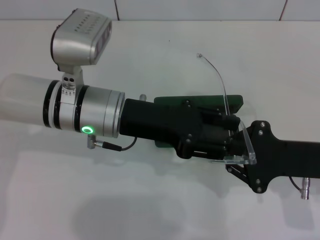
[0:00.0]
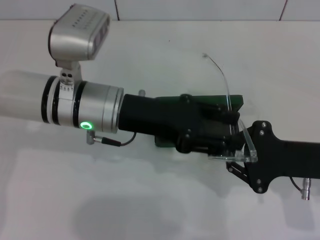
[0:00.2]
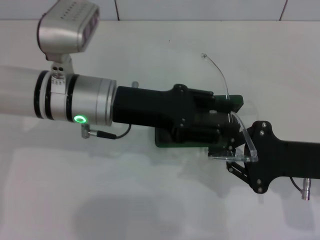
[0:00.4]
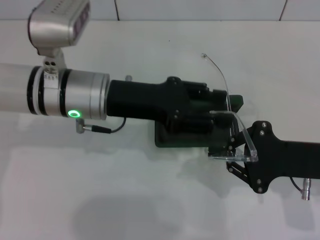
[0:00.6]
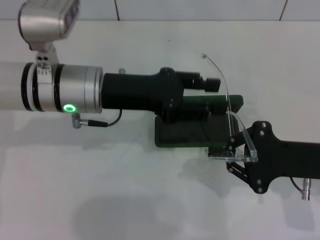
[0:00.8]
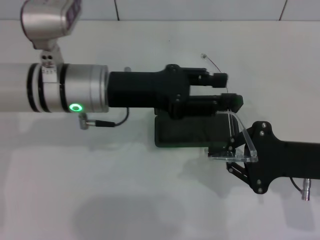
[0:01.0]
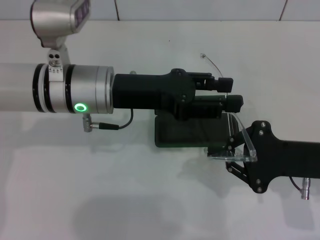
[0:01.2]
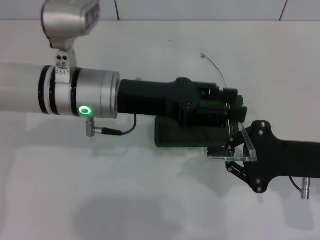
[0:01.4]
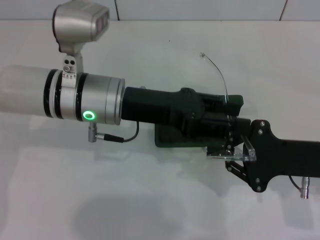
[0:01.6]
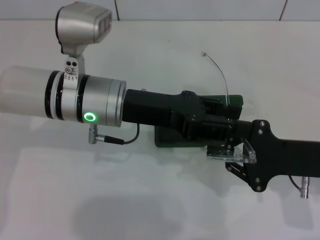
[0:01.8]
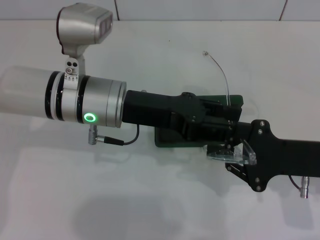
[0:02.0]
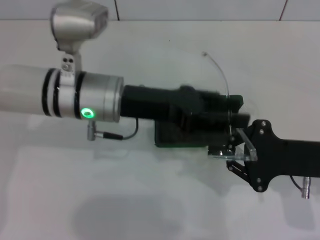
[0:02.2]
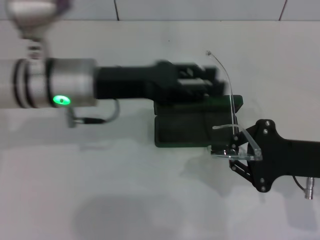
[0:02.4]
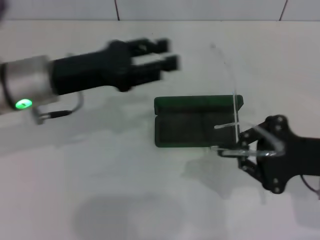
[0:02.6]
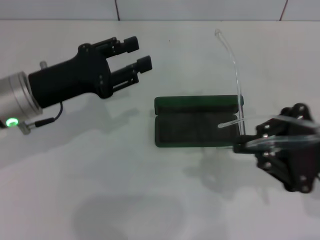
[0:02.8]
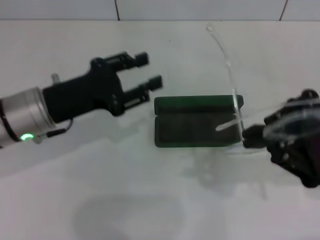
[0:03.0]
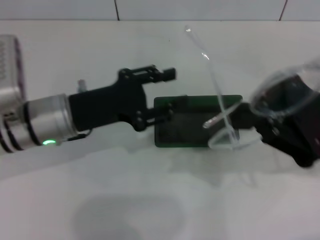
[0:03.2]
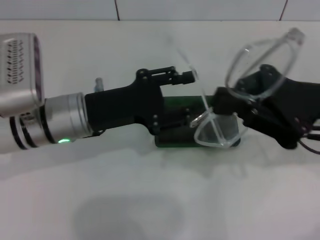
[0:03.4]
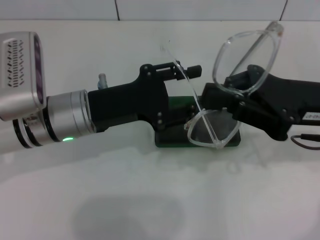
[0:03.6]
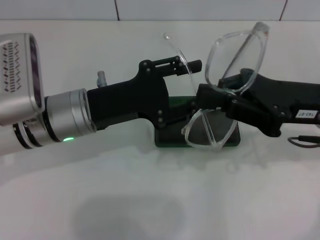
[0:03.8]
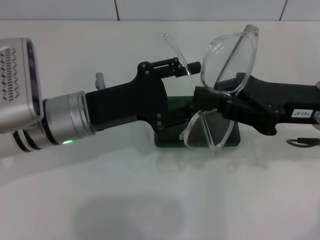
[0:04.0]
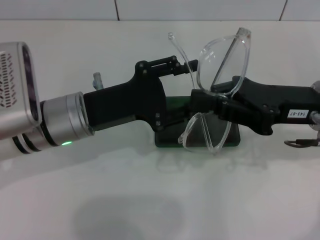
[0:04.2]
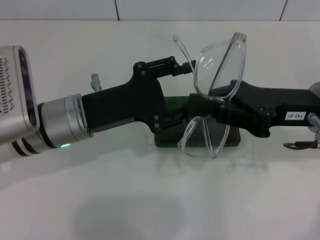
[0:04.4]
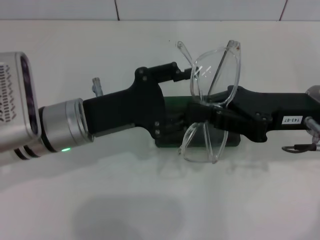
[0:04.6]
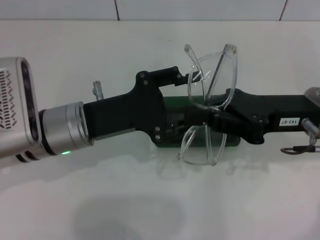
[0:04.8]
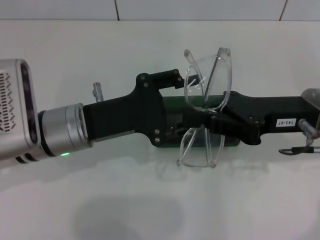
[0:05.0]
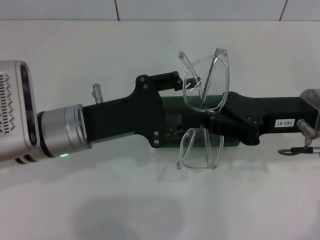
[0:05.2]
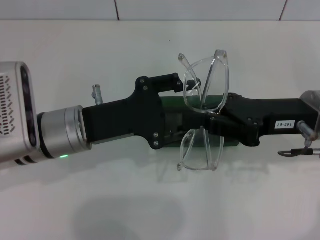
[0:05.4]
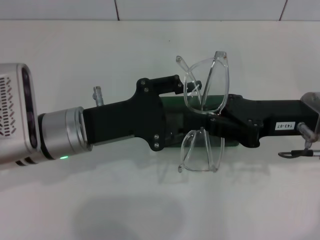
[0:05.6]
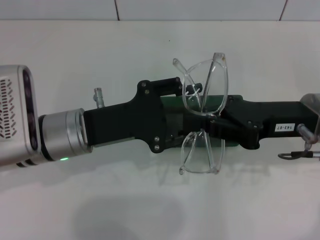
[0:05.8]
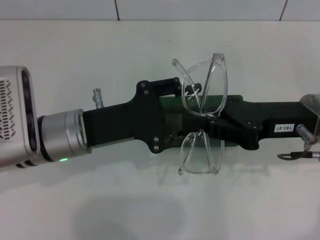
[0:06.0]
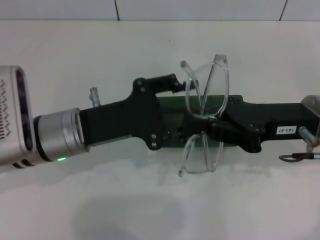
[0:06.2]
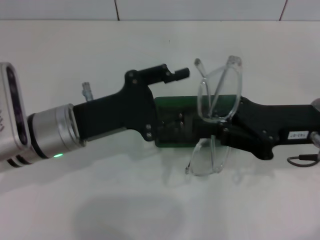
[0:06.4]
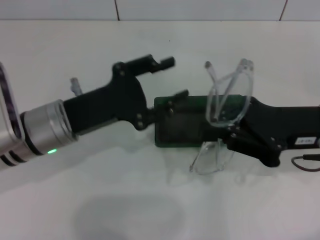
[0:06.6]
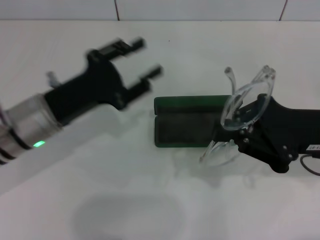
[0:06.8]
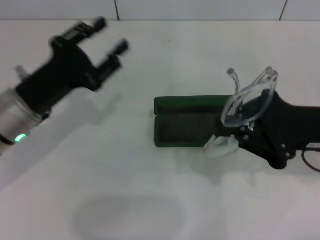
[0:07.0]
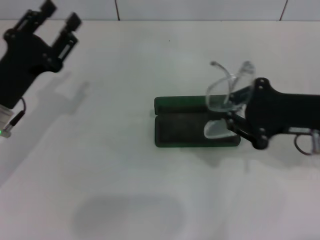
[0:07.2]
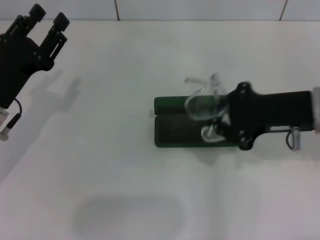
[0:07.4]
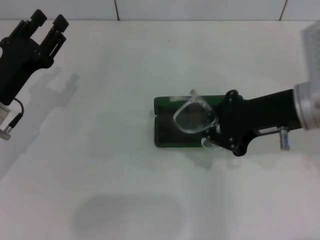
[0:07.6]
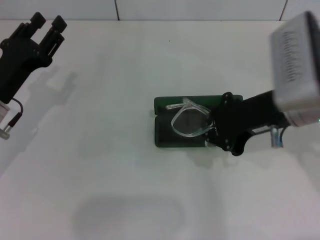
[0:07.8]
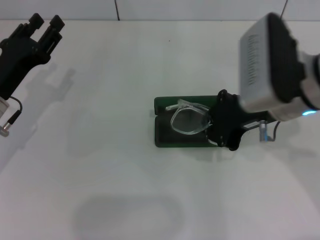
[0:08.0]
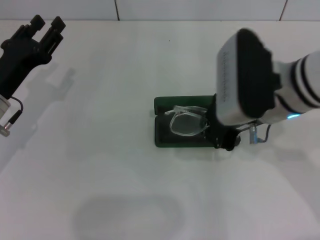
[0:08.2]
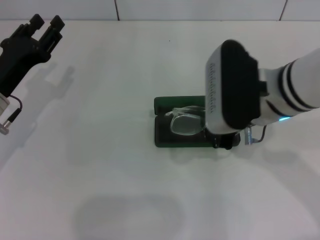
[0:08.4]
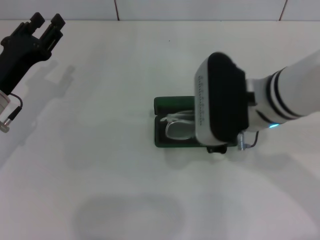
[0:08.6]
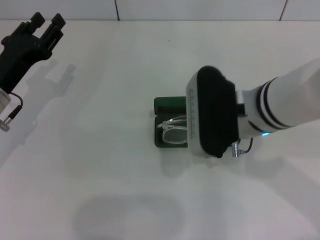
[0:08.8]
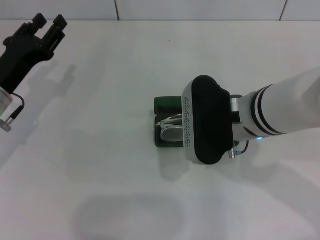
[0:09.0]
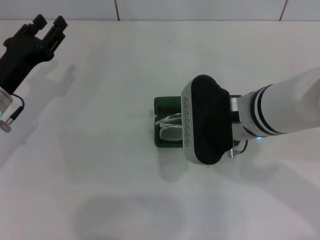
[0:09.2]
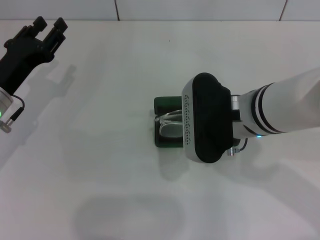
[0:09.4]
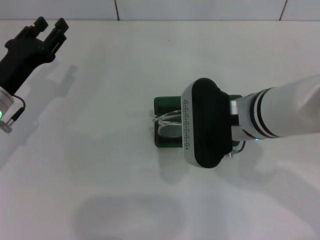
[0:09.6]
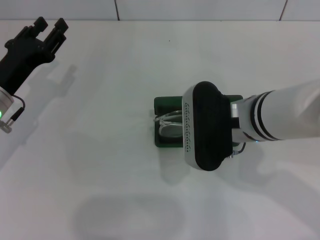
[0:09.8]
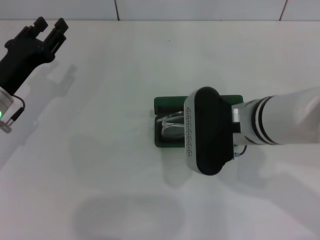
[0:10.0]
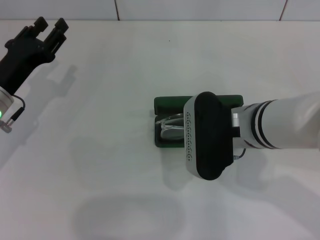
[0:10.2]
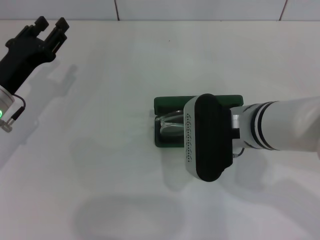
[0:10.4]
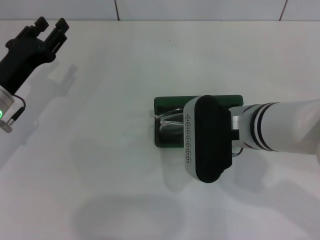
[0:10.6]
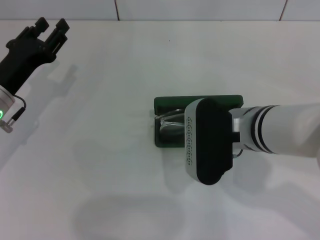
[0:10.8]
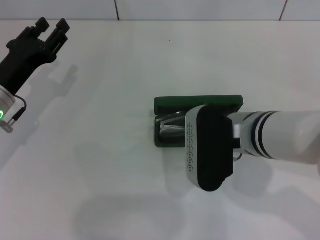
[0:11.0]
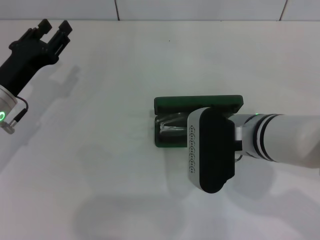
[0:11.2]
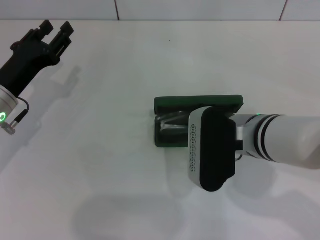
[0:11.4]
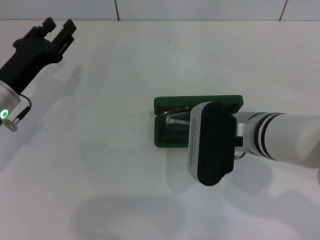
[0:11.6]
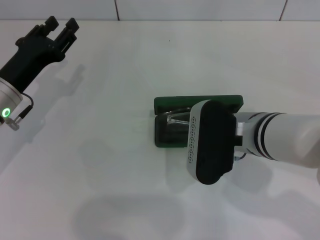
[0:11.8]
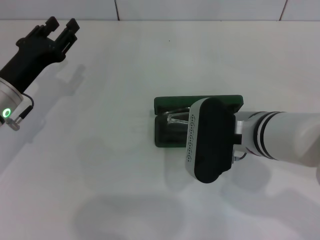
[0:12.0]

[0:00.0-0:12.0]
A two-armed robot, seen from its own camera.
Step, 0:00.0 to 0:06.2: Fold the frame with your left hand.
0:00.0 to 0:01.6: There are only small adjustments of the grippers.
0:01.6 to 0:03.0: The right gripper moves upward, roughly 5 cm. The left gripper shifts about 10 cm to the left.
0:03.0 to 0:04.4: The right gripper changes place by about 5 cm. The left gripper changes place by some 5 cm.
0:06.0 to 0:07.6: The left gripper shifts some 10 cm to the left.
0:07.6 to 0:09.0: The right gripper heads to the left, covering some 10 cm.
0:09.0 to 0:12.0: The grippers move only a little.

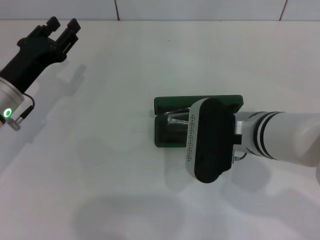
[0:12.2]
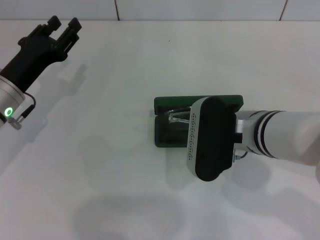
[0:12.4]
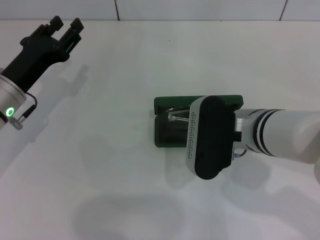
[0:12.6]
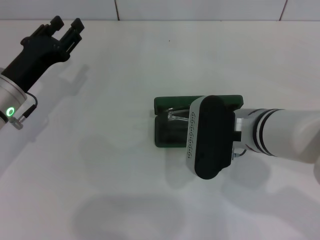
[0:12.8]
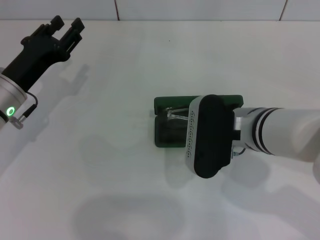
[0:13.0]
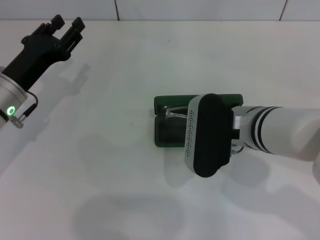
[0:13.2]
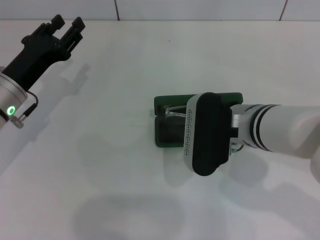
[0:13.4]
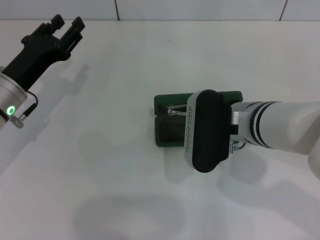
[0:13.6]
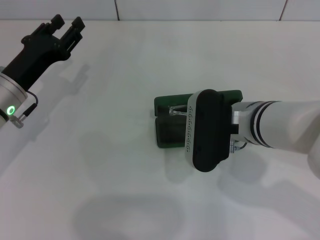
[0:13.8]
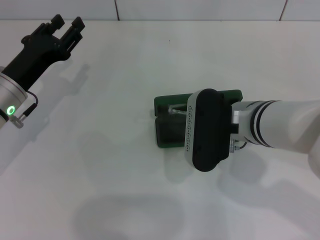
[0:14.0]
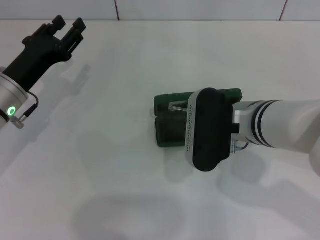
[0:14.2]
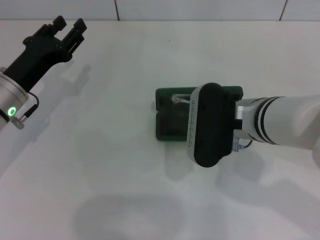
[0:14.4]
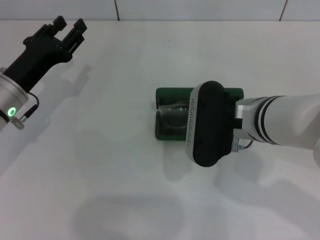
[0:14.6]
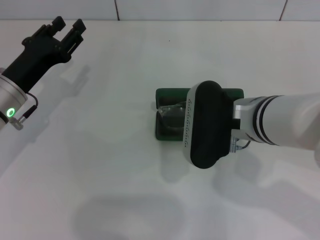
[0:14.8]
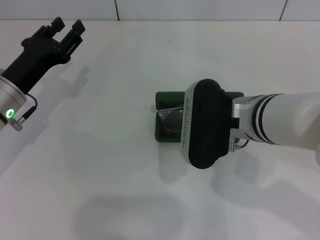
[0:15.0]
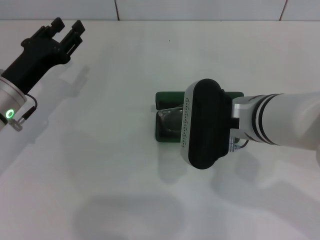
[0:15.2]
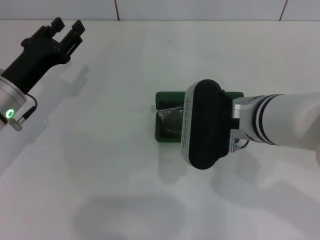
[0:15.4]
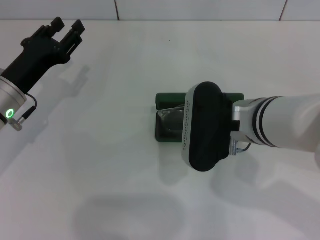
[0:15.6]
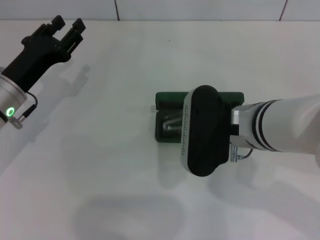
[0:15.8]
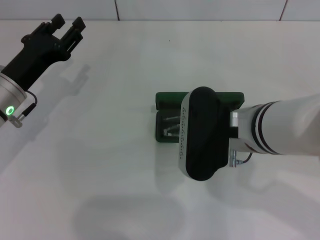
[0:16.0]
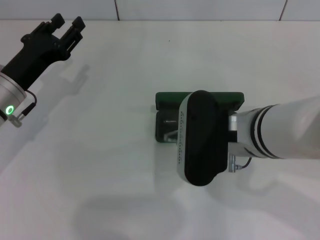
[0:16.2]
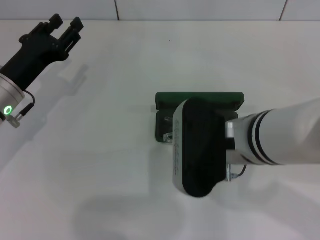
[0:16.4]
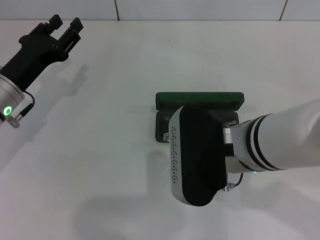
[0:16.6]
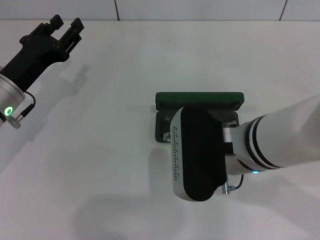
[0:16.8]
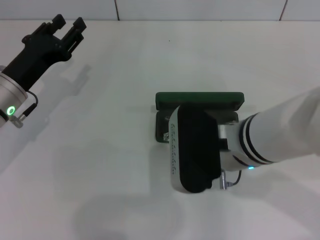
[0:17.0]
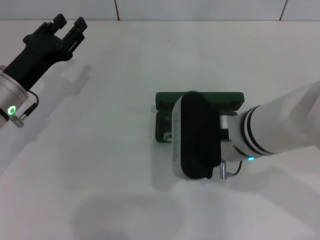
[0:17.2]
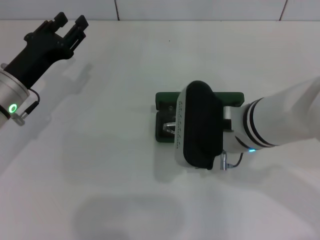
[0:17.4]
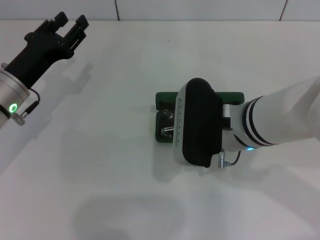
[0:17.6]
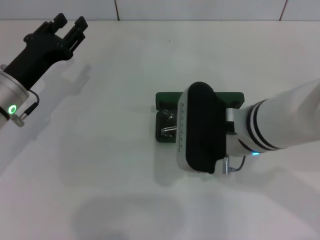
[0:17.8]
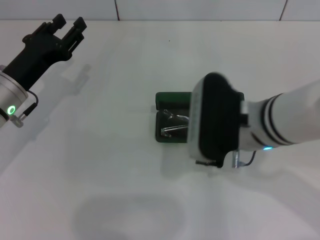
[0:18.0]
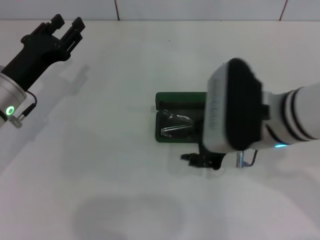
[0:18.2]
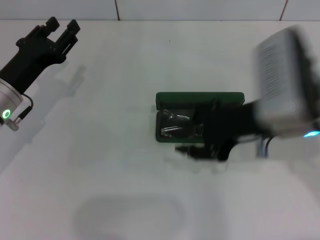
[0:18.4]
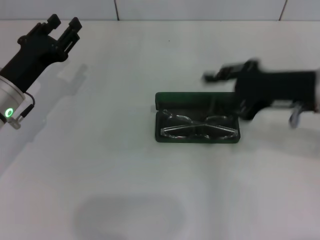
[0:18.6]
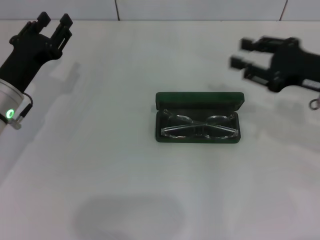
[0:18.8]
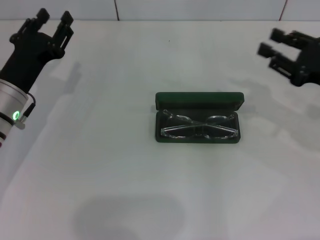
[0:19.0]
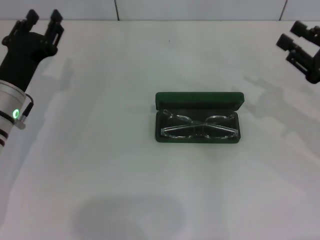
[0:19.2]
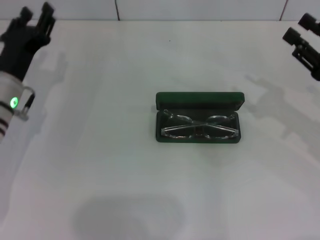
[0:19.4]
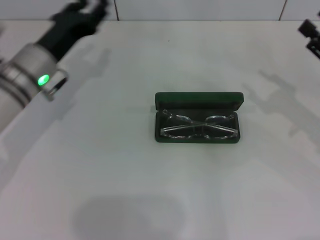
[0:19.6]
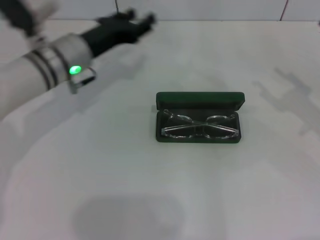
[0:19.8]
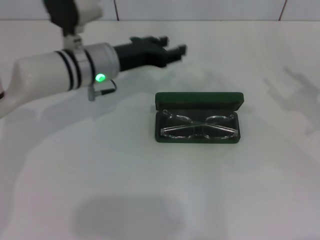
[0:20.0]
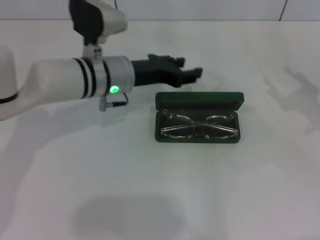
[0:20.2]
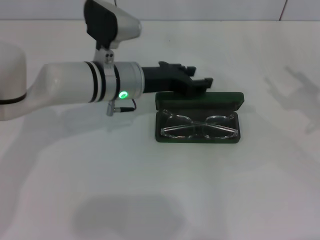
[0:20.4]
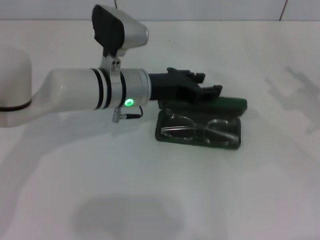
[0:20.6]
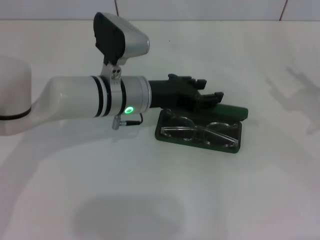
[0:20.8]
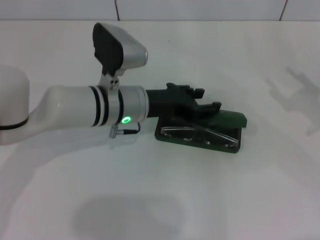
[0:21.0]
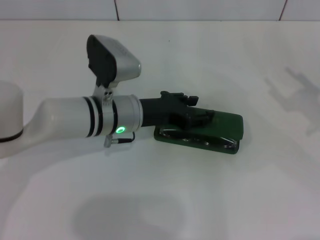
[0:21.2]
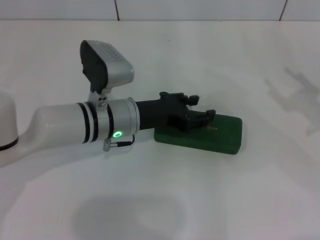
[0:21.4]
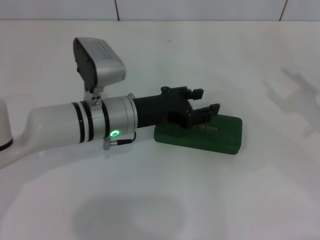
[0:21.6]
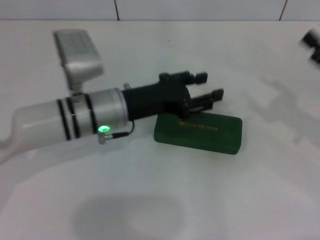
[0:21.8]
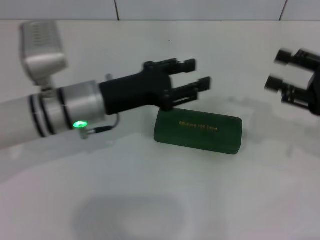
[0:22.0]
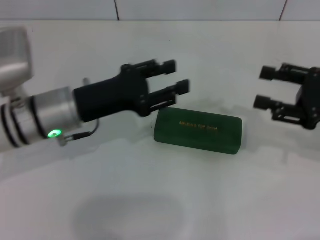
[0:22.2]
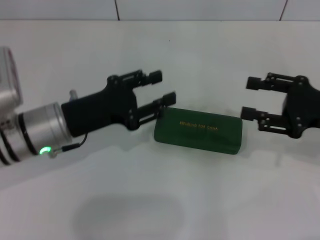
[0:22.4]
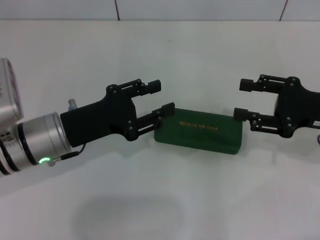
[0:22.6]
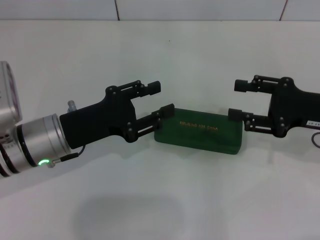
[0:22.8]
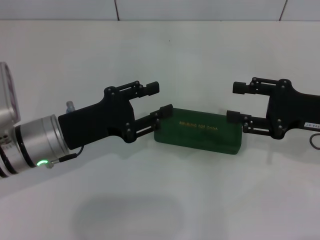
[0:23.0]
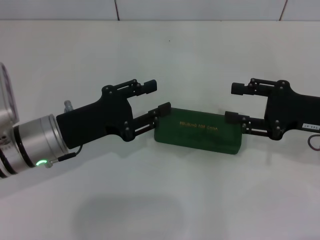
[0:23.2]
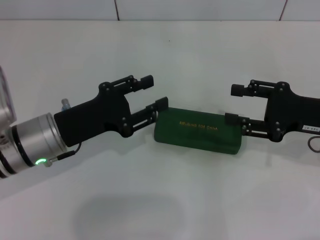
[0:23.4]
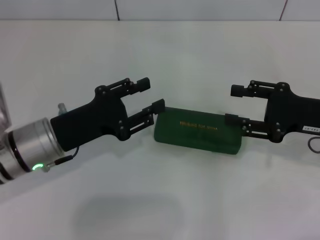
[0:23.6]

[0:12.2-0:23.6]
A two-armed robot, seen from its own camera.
Step, 0:12.2 to 0:17.4: Put the glasses into the case with your right hand.
Step, 0:17.8 to 0:21.4: Close the glasses case with your left hand.
0:12.2 to 0:13.6: Both grippers stay put.
0:13.6 to 0:15.0: The right gripper opens its fingers.
0:15.0 to 0:17.8: The grippers move only a little.
0:17.8 to 0:19.4: The right gripper heads to the right, covering about 20 cm.
0:19.4 to 0:20.8: The left gripper moves to the right, about 15 cm.
0:20.8 to 0:22.2: The left gripper goes some 10 cm to the left and backward.
0:22.2 to 0:23.6: The left gripper moves roughly 5 cm.
